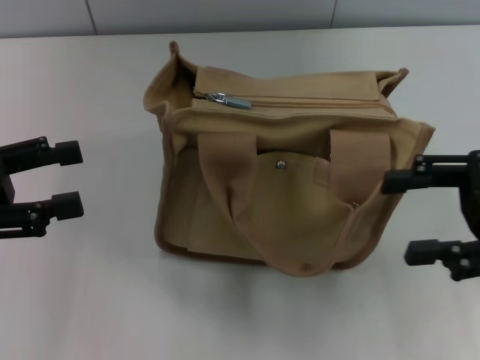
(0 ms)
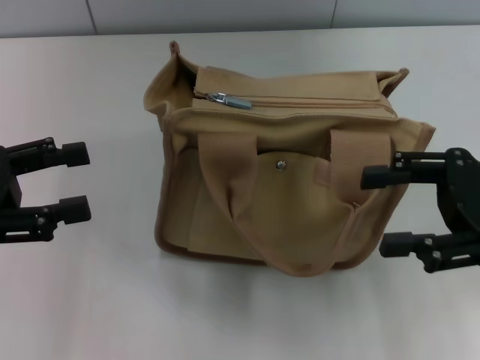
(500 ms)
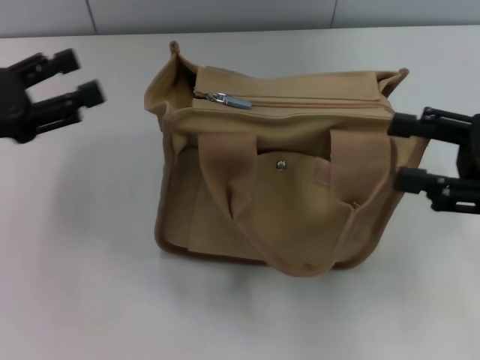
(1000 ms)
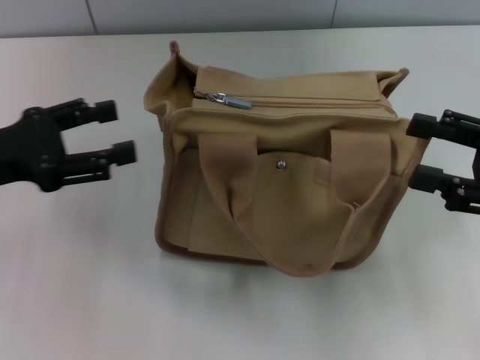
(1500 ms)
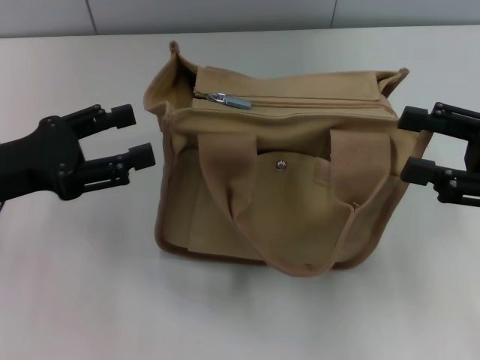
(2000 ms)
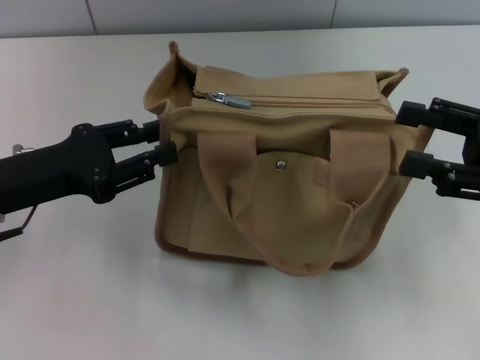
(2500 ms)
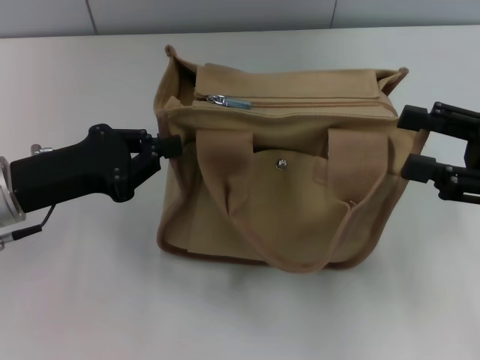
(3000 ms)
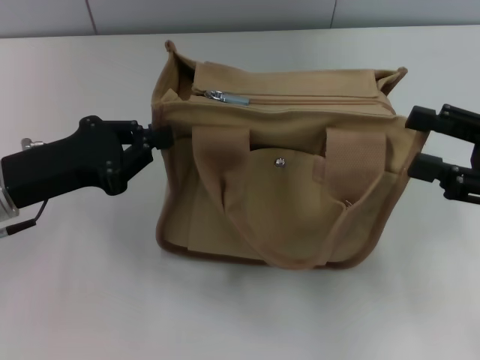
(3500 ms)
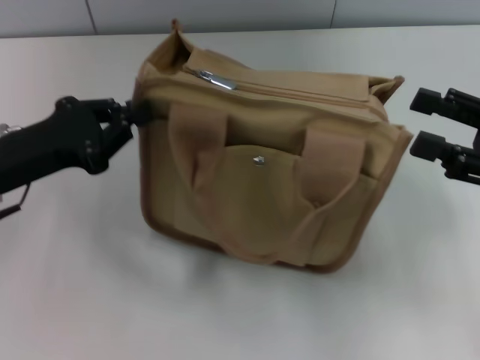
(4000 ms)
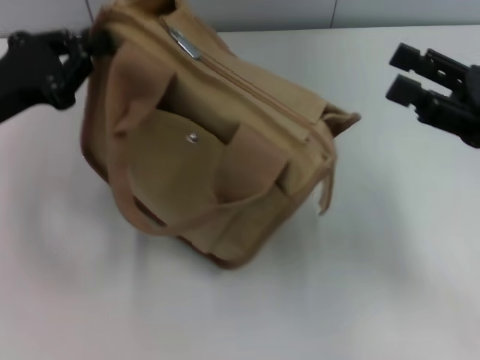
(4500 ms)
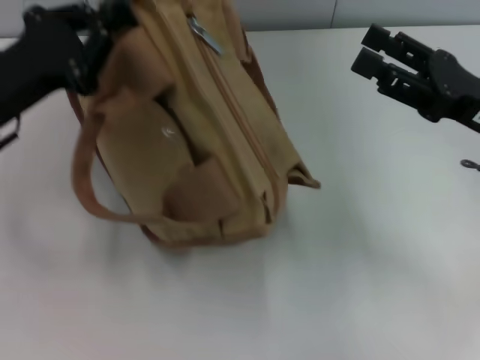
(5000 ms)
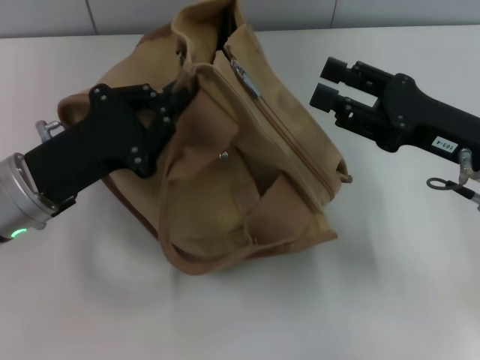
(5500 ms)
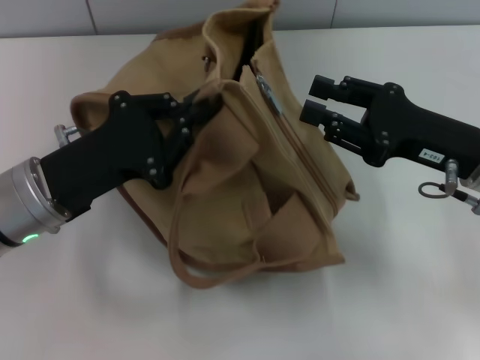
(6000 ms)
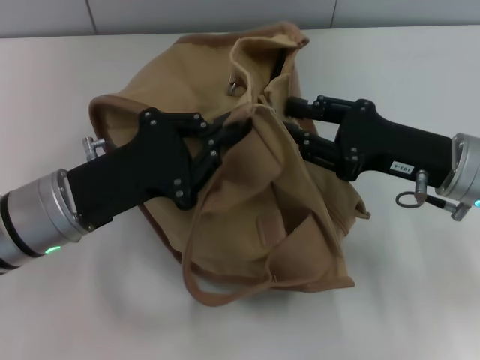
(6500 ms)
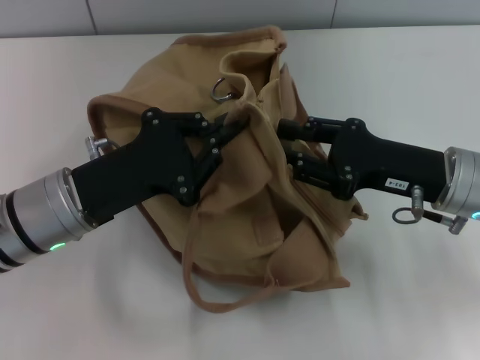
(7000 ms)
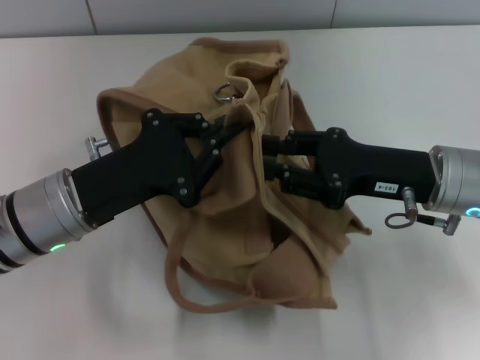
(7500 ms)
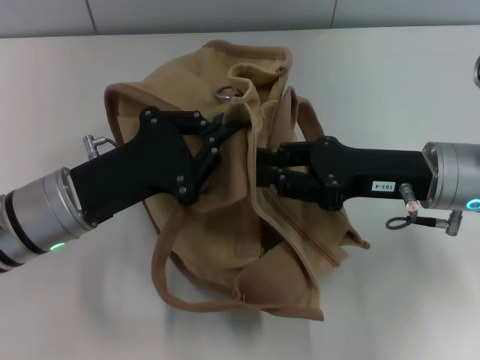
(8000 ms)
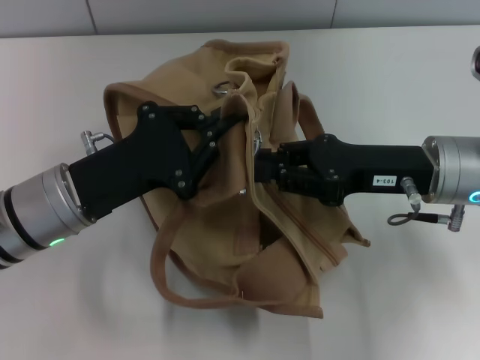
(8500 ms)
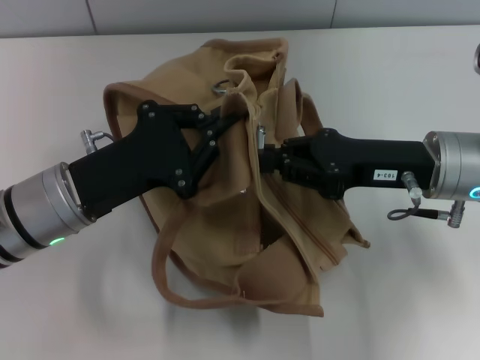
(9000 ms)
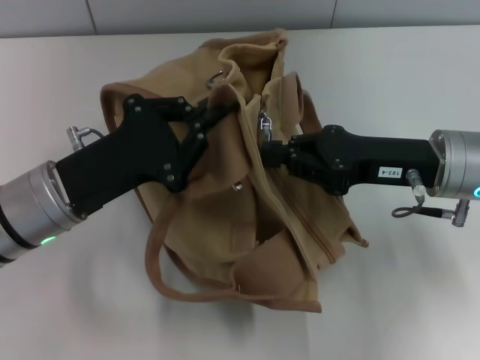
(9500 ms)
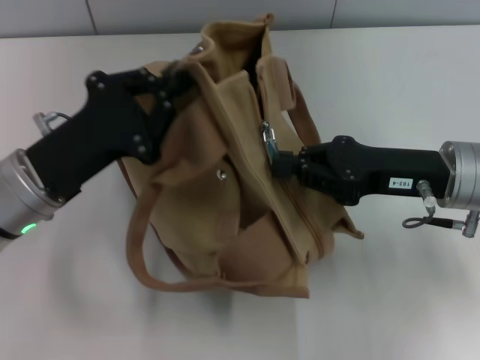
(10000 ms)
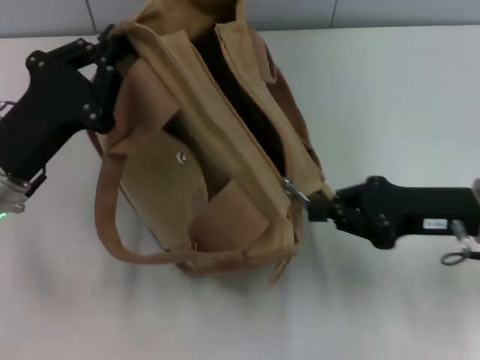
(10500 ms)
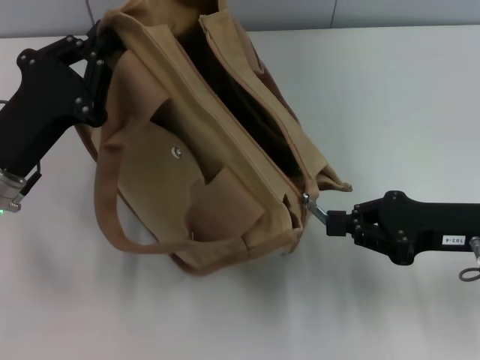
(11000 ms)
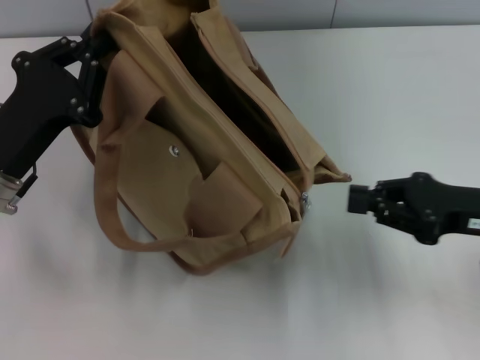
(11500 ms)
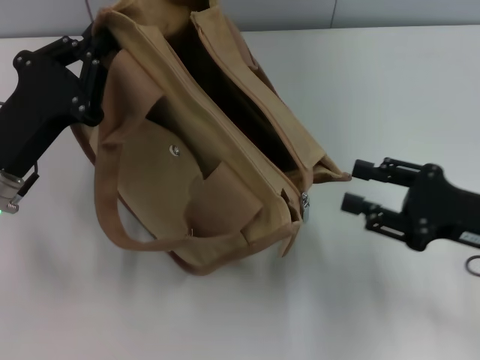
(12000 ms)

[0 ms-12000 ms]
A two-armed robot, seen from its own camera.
0 ms to 2000 ms: The left gripper heads to the right, covering roughly 5 cm.
2000 ms to 4000 ms: The left gripper closes its fingers.
4000 ms to 6000 ms: The left gripper goes some 5 cm to the right; the right gripper travels to the left by roughly 10 cm.
8000 ms to 10000 ms: The right gripper closes.
10000 ms to 12000 ms: The right gripper moves to the right and backward, approximately 10 cm, and opens.

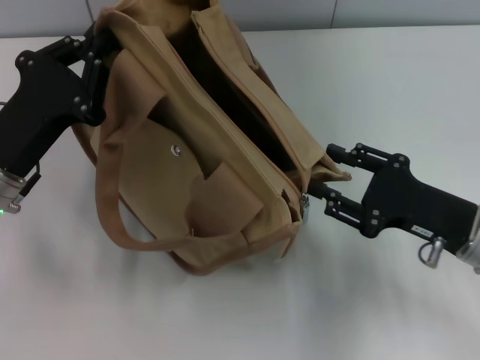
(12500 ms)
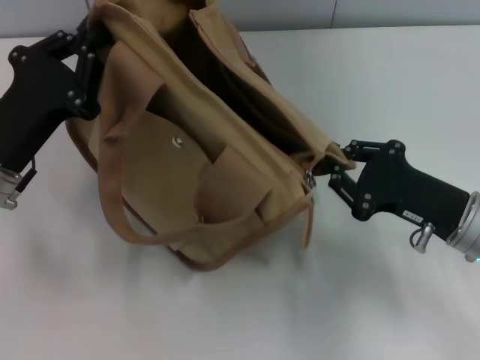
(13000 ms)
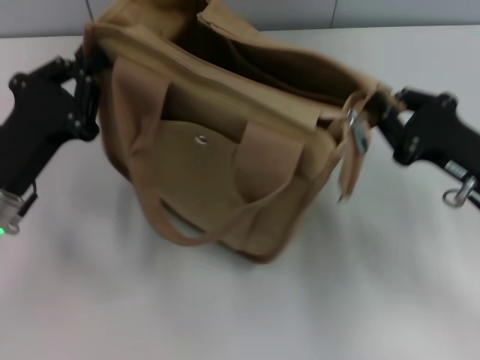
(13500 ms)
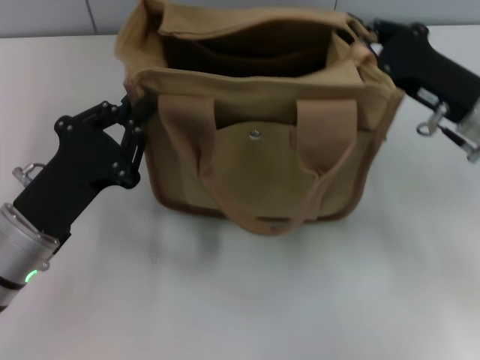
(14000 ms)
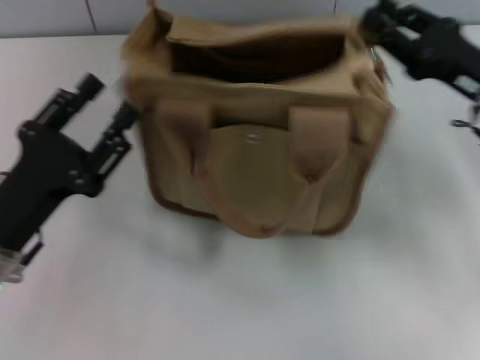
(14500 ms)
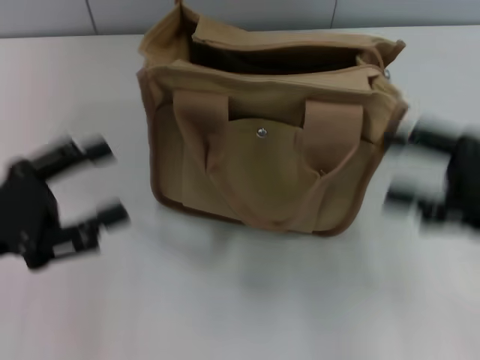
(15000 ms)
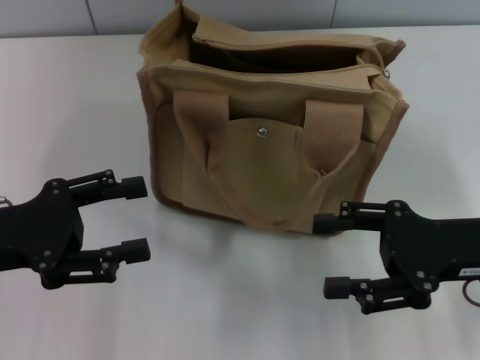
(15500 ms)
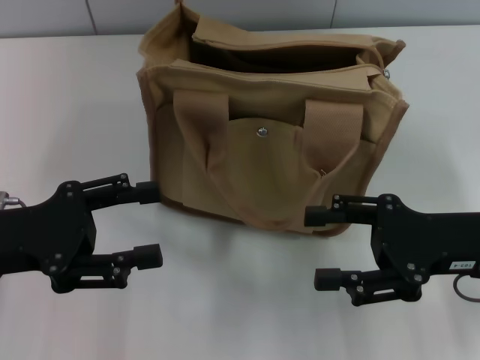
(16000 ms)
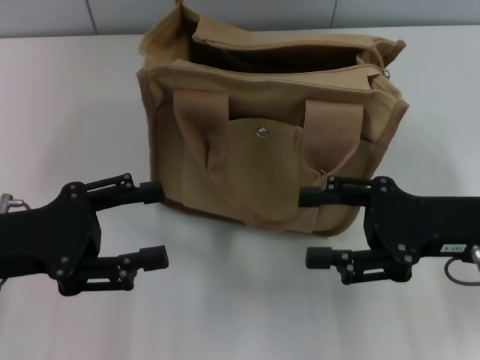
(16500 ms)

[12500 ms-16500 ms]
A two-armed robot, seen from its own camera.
Step, 12500 ms to 14000 ms: Grab the bag with your left hand.
12500 ms to 14500 ms: The right gripper is displaced forward and upward by roughly 10 cm, and closes its fingers. Meanwhile the left gripper is displaced backward by roughly 5 cm, and opens up.
14500 ms to 16500 ms: The left gripper shifts by roughly 5 cm, and opens up; the right gripper goes some 5 cm backward, and opens.
